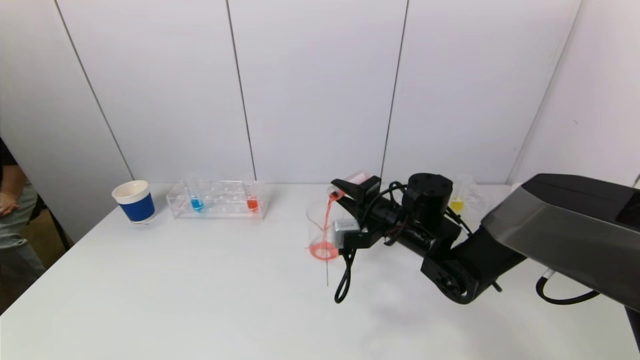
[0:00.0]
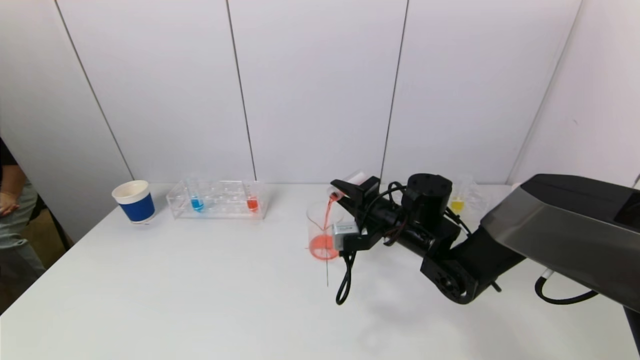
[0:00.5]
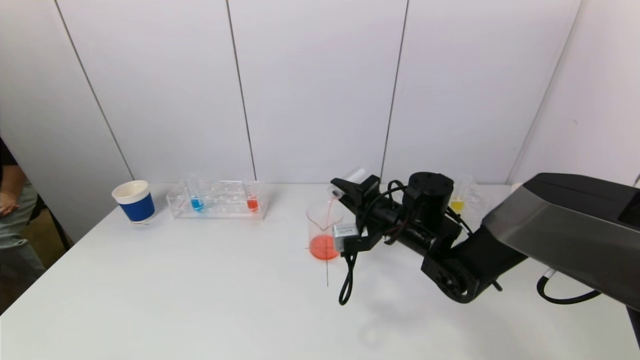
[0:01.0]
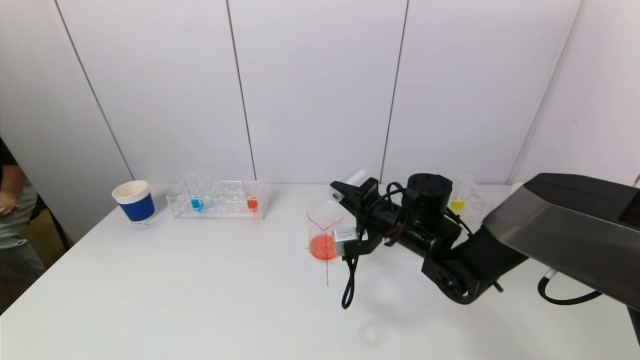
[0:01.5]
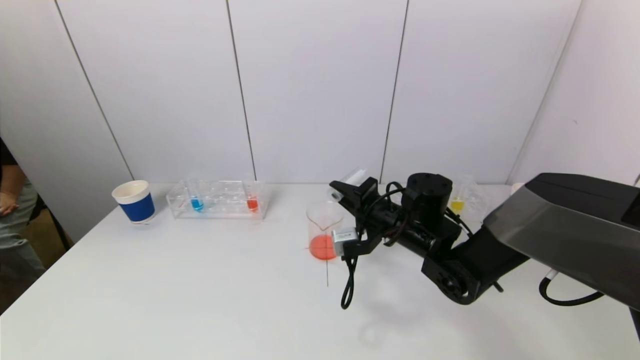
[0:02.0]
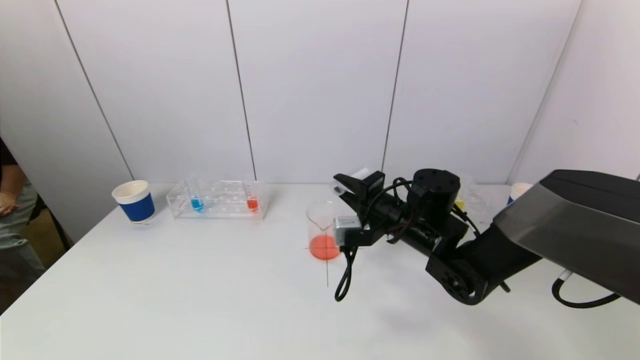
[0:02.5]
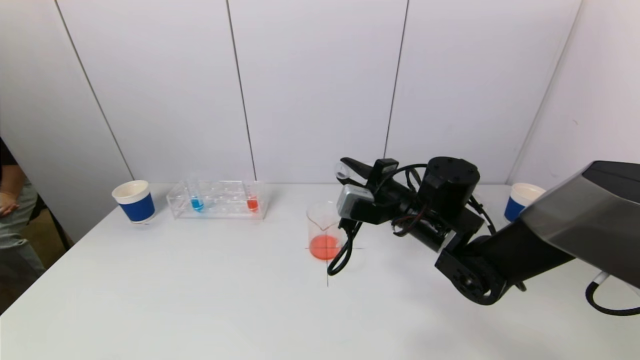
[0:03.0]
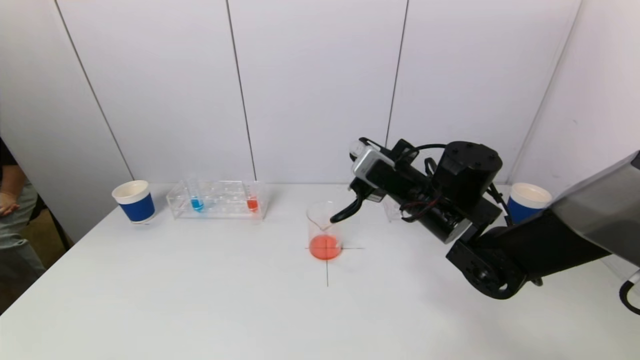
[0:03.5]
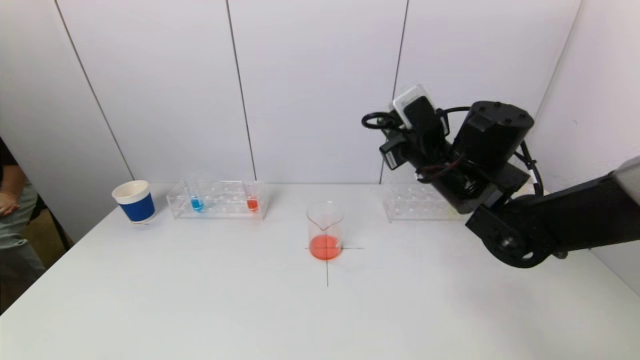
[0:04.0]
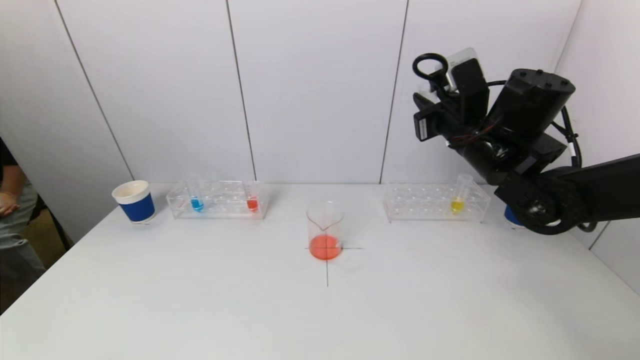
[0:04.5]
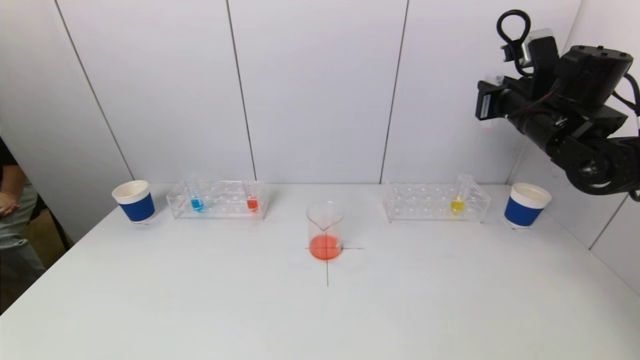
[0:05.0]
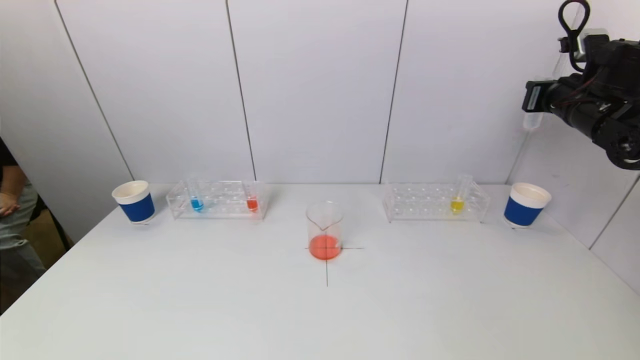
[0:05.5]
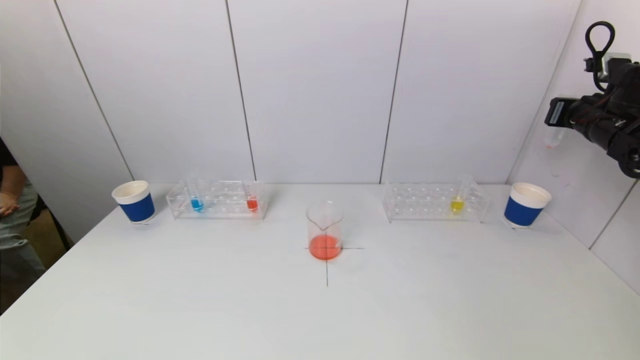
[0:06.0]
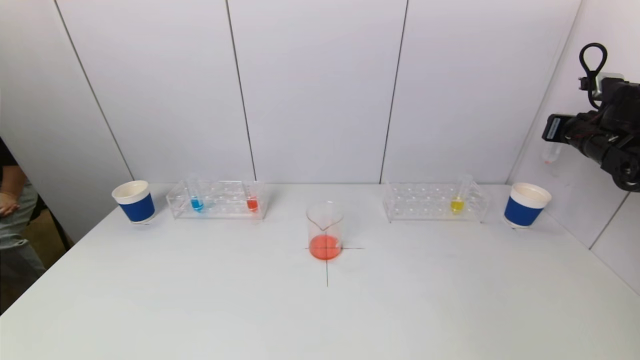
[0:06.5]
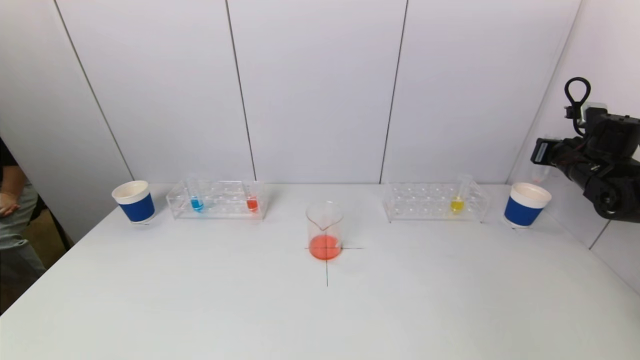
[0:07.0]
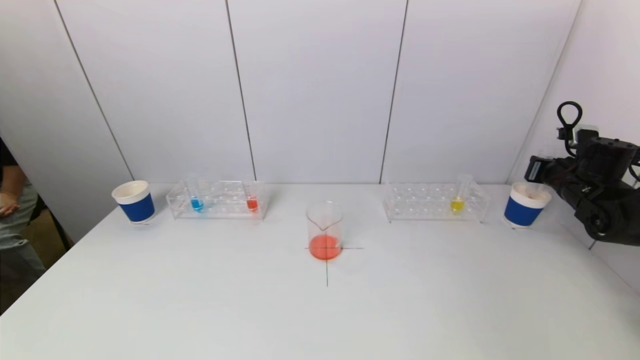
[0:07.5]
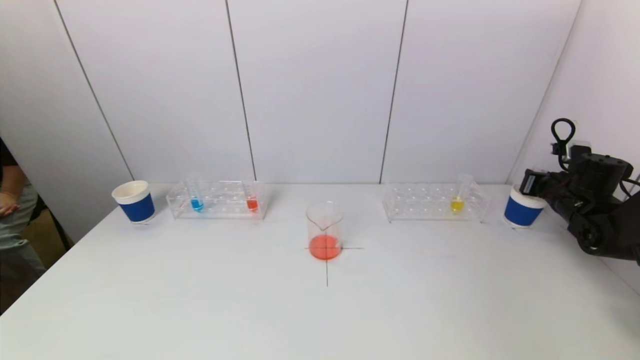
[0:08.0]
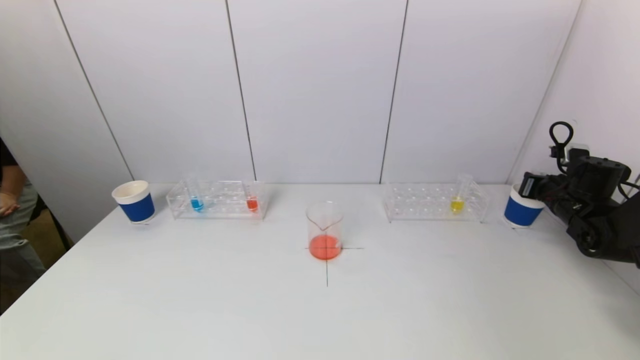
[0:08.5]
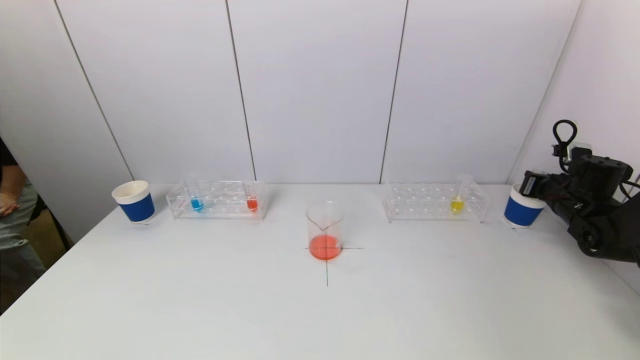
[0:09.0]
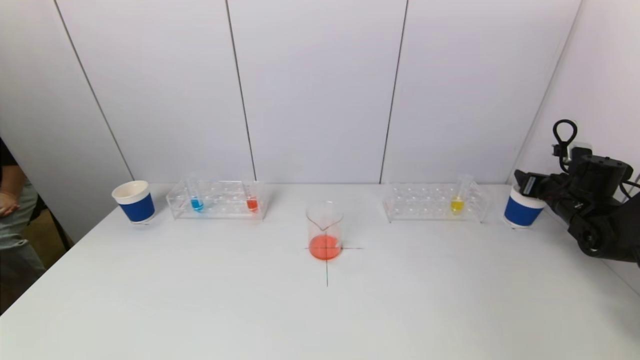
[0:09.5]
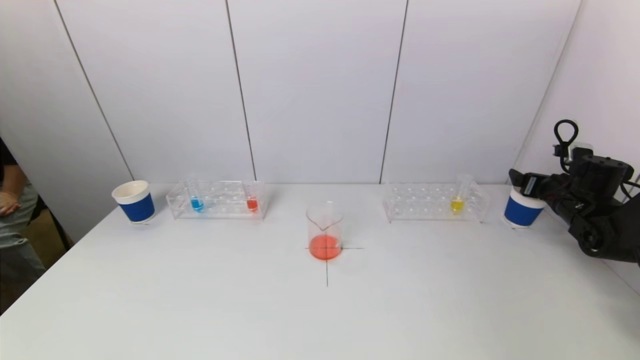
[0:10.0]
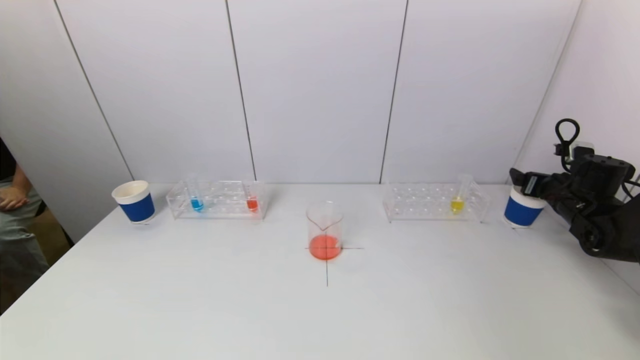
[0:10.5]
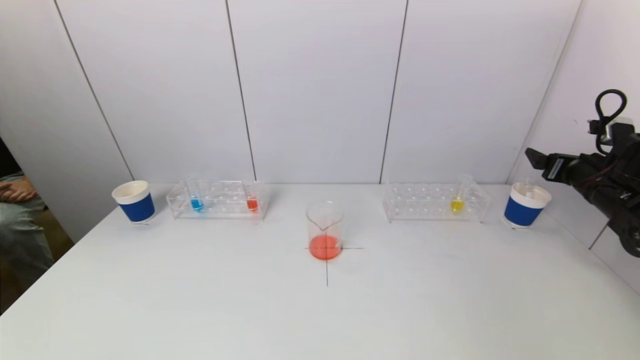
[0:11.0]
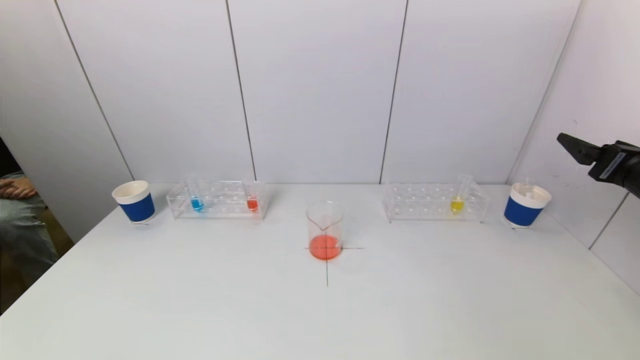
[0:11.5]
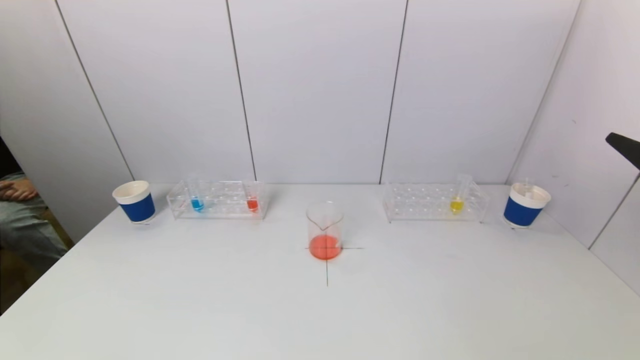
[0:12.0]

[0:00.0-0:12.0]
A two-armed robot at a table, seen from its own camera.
Task of the whole recording: pick up a test tube with pigment on left test tube rack and a test tube with pigment on right test tube rack by grippers and pour them into the beaker.
Step, 0:00.0 to 0:02.0: Pour the red reagent into the graduated cylinder with the right gripper.
Step, 0:02.5 to 0:09.5: Place the test tube into the paper cup with the right gripper.
0:00.0 to 0:02.0: The grippers make only small movements.
0:02.0 to 0:04.0: The right gripper goes about 10 cm upward.
0:04.0 to 0:06.0: The right gripper shifts about 30 cm to the right.
0:06.0 to 0:08.0: The right gripper heads downward, covering roughly 15 cm.
0:08.0 to 0:10.0: The right gripper opens up.
0:10.0 to 0:12.0: The right gripper moves backward and upward, about 30 cm.

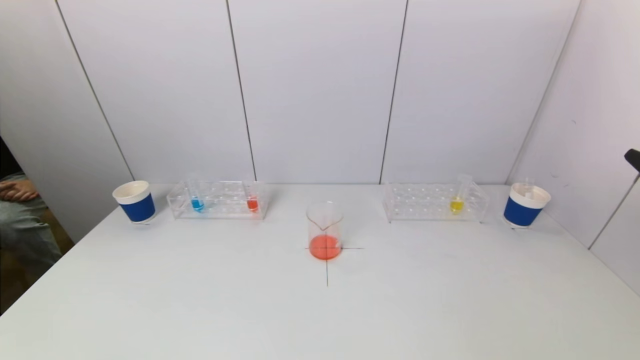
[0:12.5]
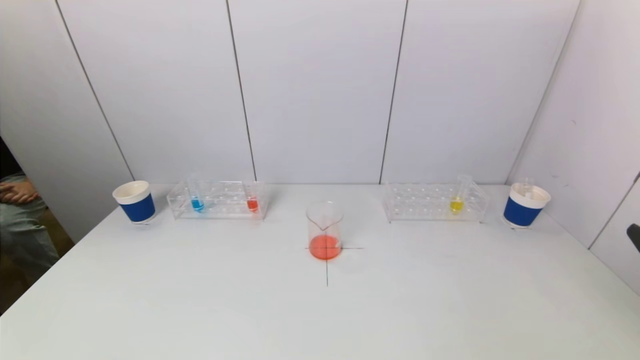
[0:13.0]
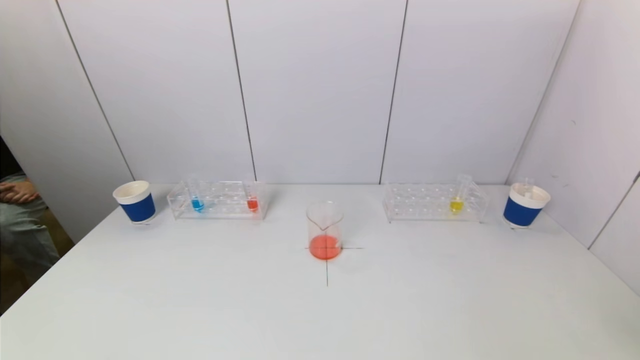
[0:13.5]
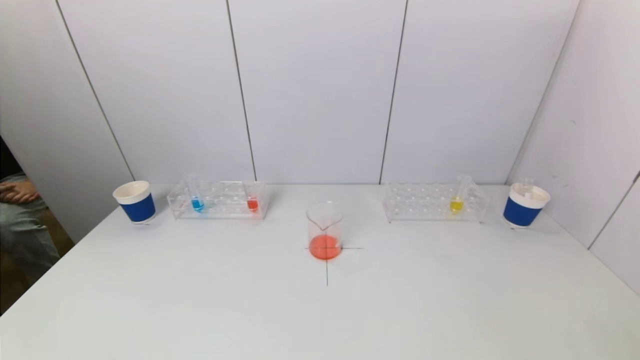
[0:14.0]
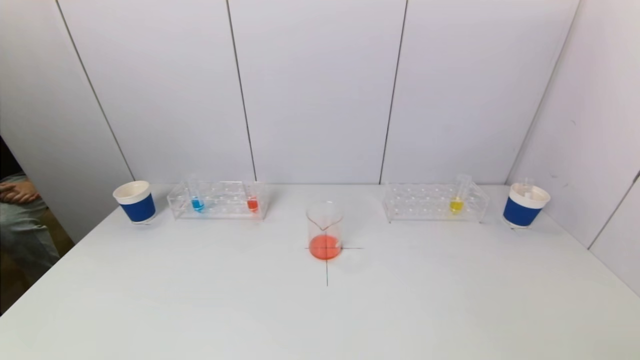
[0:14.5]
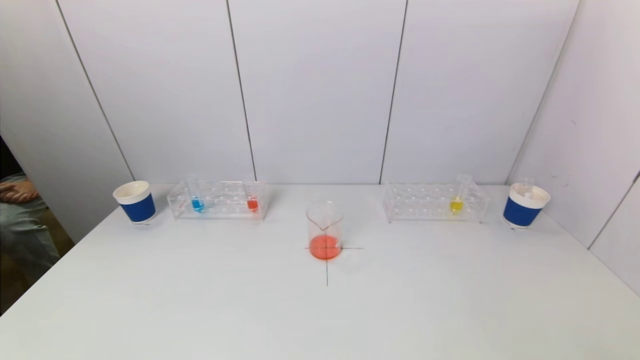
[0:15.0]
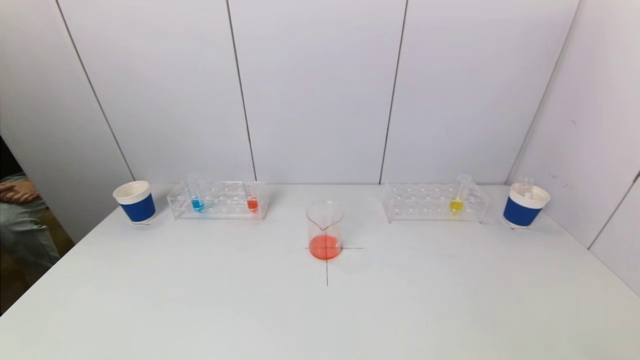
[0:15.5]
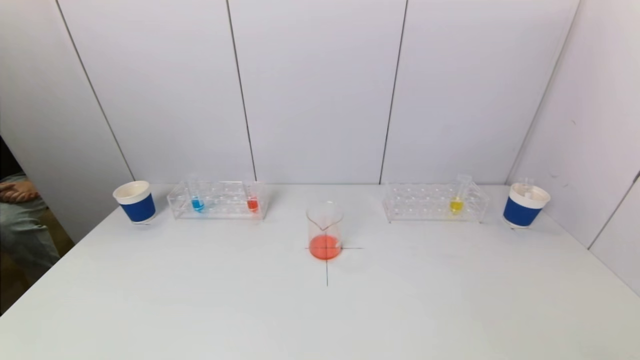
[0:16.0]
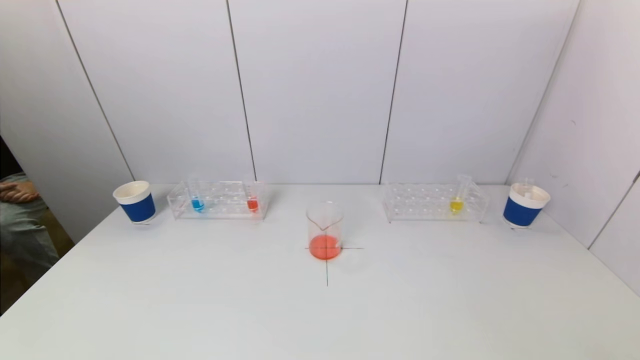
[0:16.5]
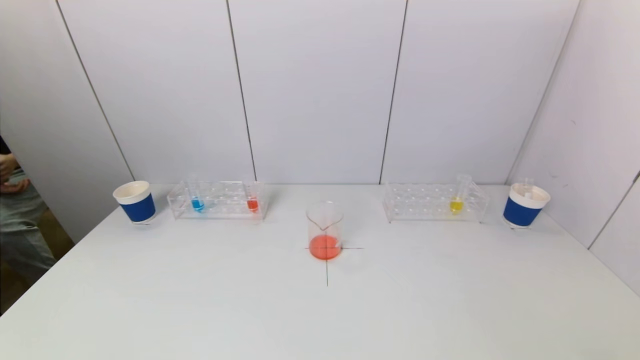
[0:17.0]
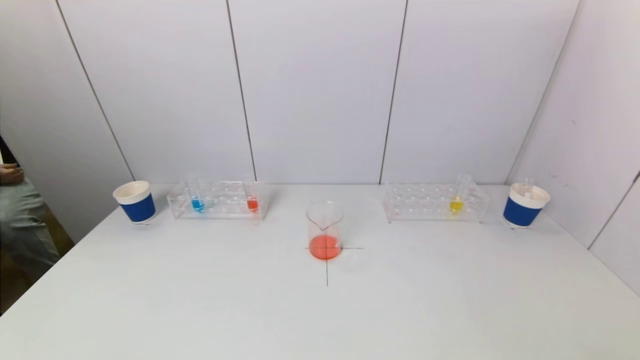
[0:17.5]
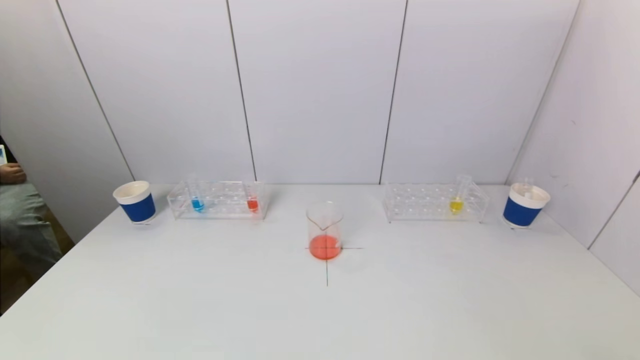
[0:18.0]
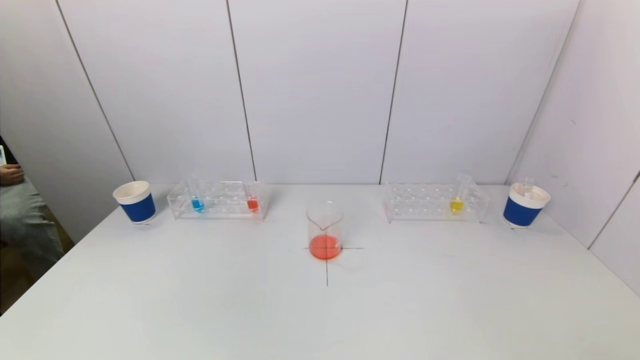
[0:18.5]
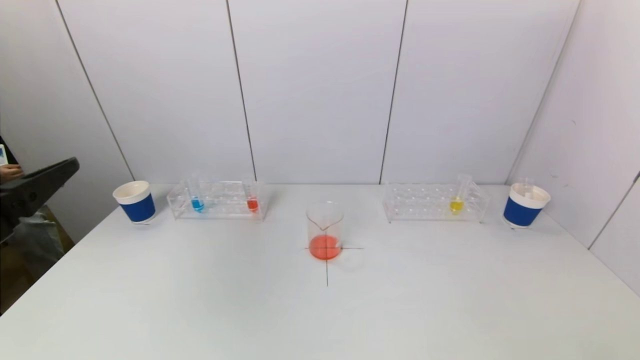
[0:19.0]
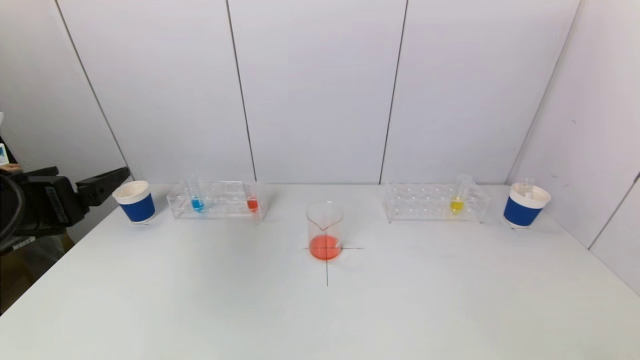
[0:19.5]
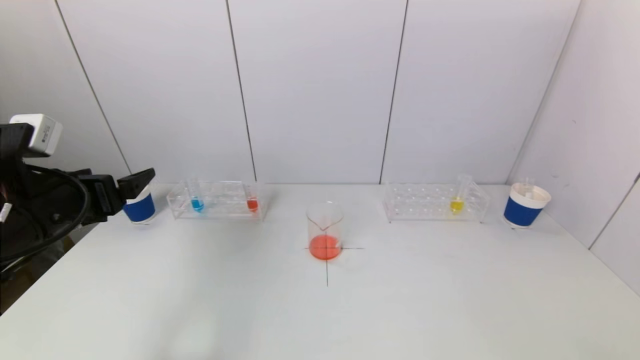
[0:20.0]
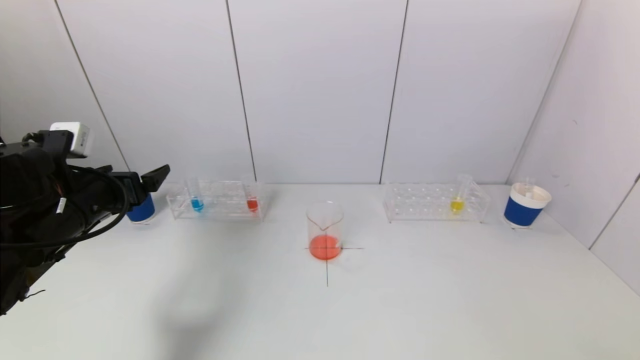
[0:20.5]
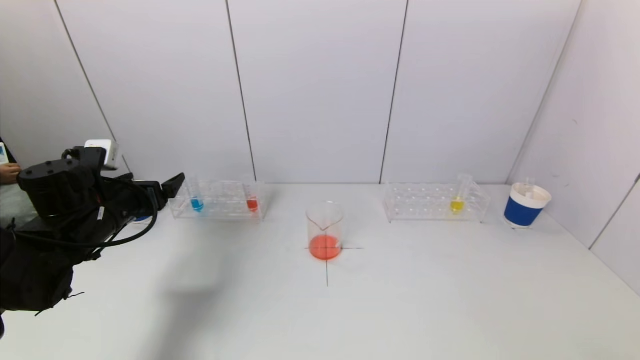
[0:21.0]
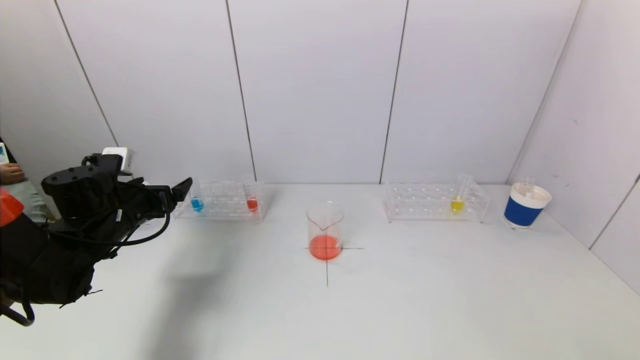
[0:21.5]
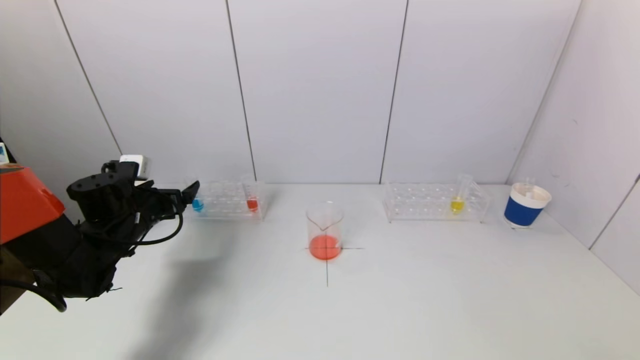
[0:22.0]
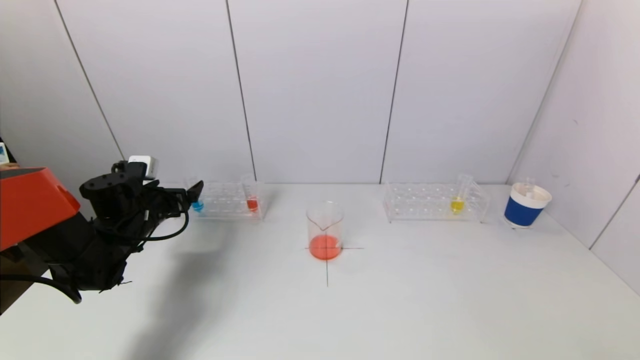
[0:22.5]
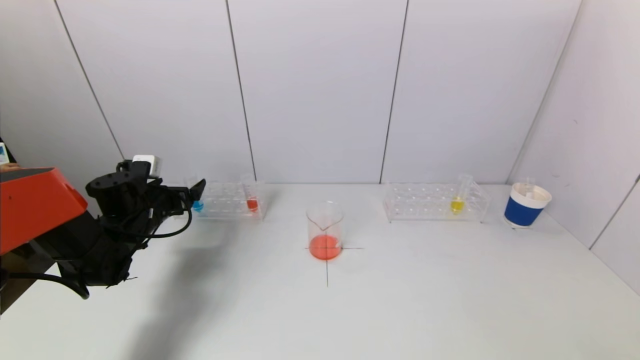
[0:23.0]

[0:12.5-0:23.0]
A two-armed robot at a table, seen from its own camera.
Task of the whole recording: pick up a test tube with pigment on left test tube rack and a test tube with pigment on right test tube rack by grippers and pour them into the beaker.
0:16.5 to 0:19.0: The left gripper moves upward and forward, roughly 25 cm.
0:19.0 to 0:21.0: The left gripper is displaced forward and downward by approximately 20 cm.
0:21.0 to 0:23.0: The left gripper goes about 10 cm forward and downward.
